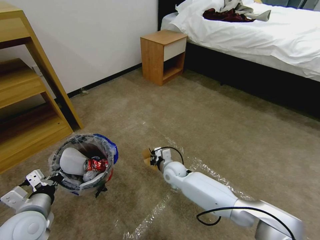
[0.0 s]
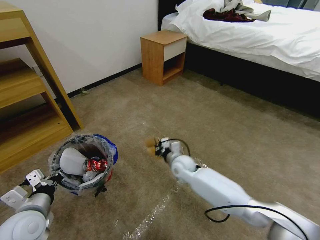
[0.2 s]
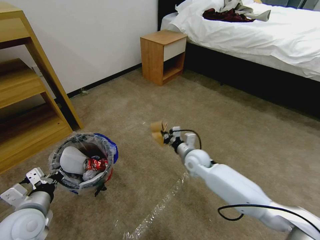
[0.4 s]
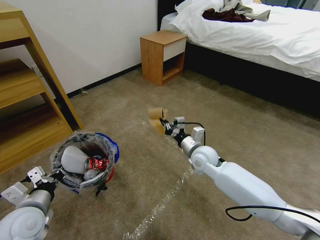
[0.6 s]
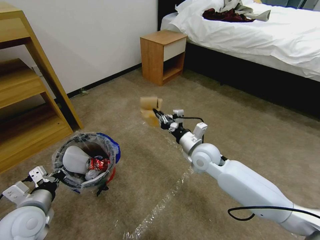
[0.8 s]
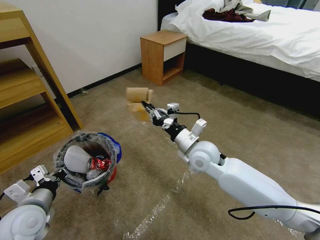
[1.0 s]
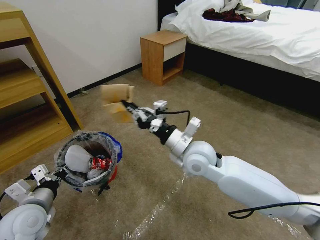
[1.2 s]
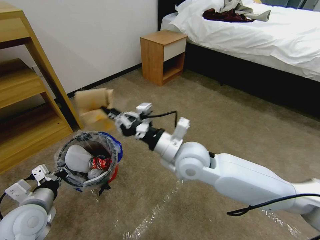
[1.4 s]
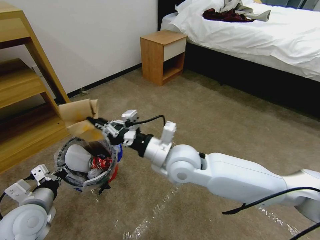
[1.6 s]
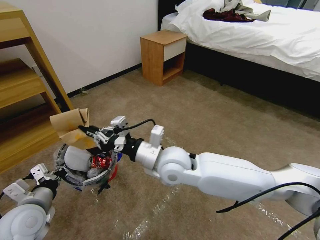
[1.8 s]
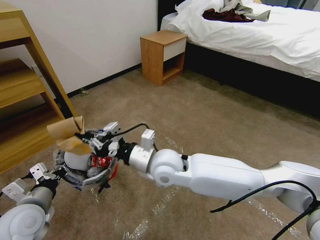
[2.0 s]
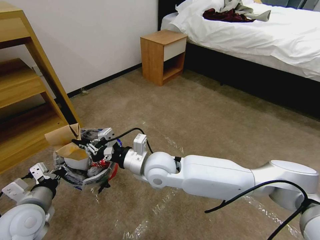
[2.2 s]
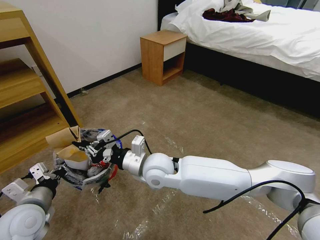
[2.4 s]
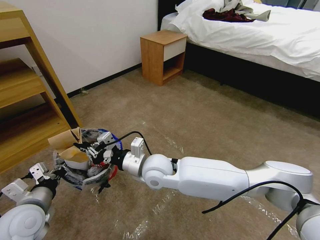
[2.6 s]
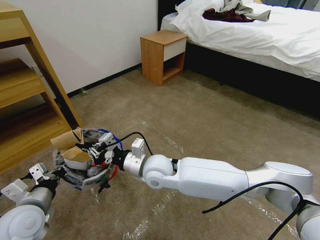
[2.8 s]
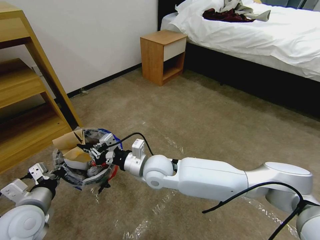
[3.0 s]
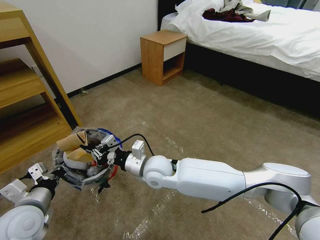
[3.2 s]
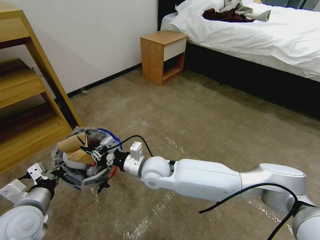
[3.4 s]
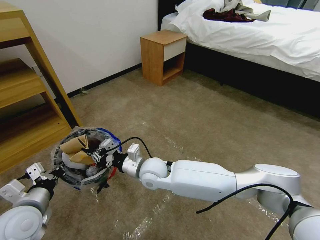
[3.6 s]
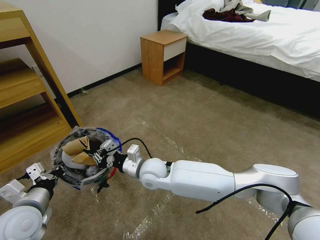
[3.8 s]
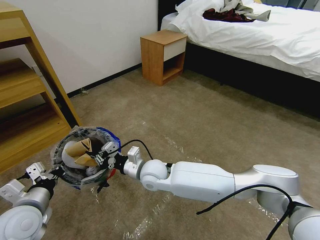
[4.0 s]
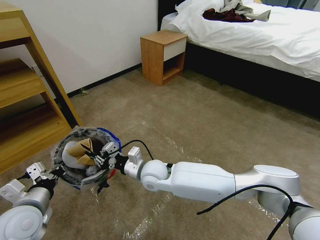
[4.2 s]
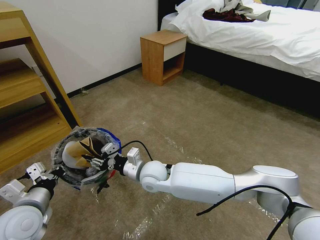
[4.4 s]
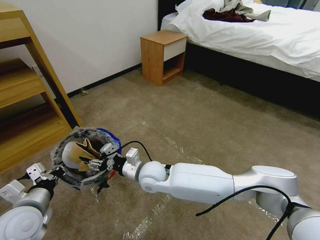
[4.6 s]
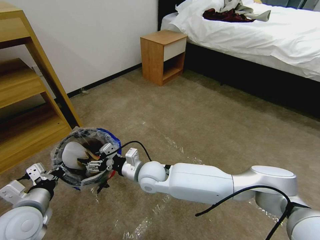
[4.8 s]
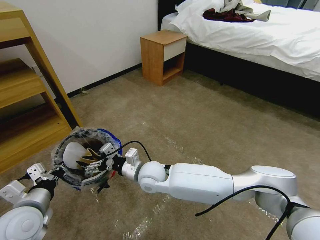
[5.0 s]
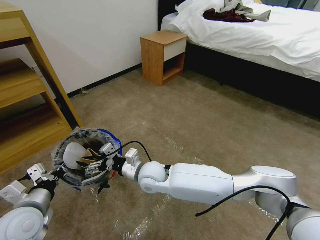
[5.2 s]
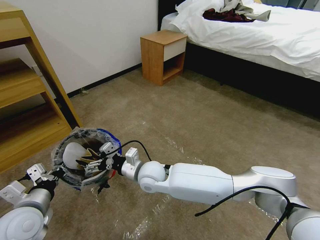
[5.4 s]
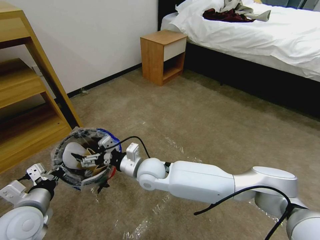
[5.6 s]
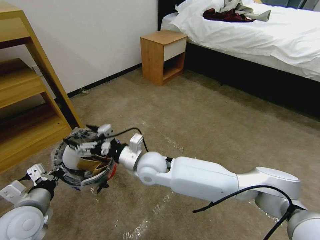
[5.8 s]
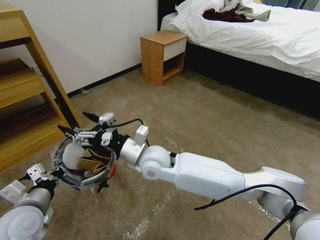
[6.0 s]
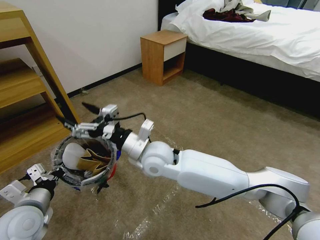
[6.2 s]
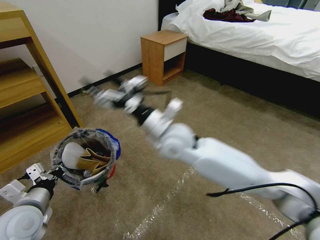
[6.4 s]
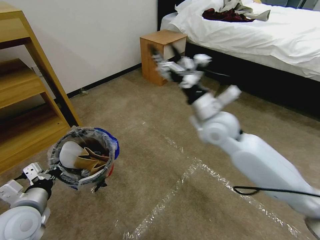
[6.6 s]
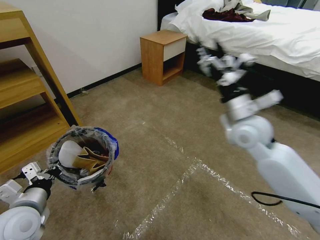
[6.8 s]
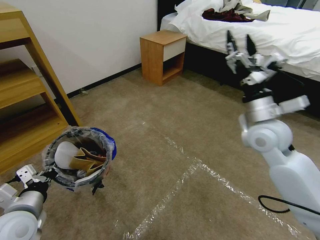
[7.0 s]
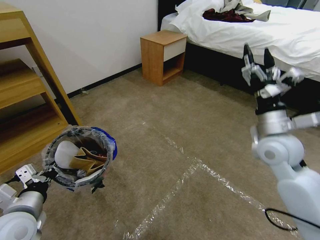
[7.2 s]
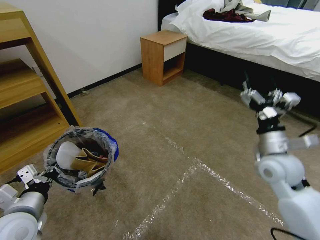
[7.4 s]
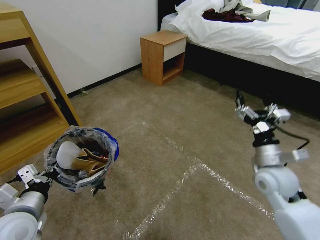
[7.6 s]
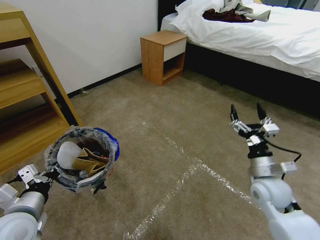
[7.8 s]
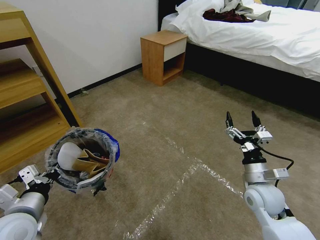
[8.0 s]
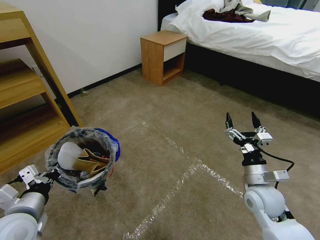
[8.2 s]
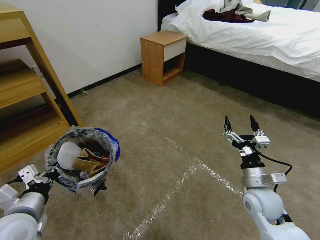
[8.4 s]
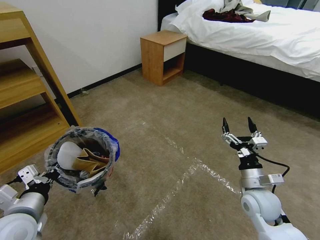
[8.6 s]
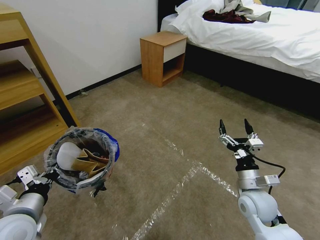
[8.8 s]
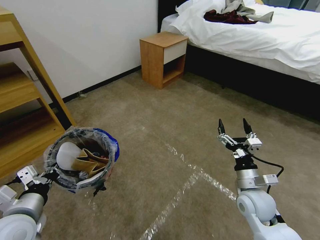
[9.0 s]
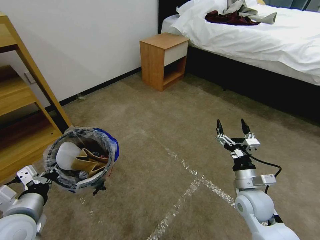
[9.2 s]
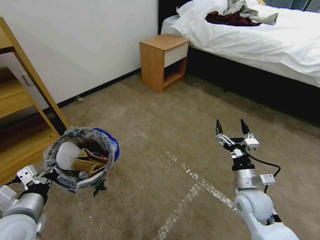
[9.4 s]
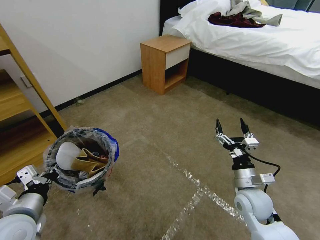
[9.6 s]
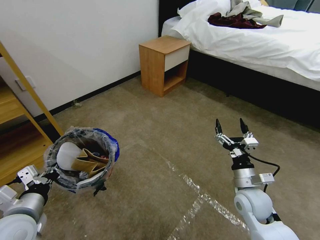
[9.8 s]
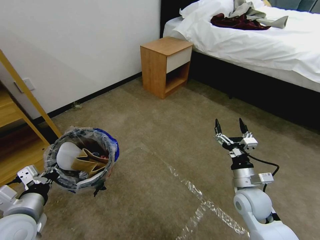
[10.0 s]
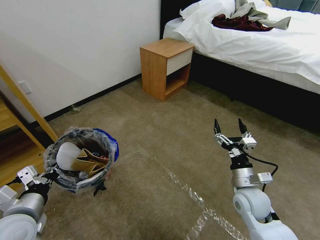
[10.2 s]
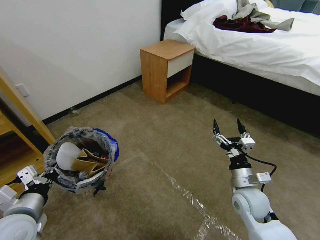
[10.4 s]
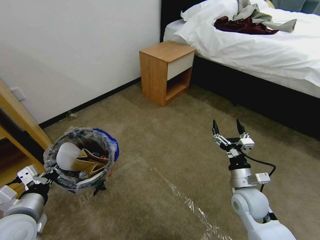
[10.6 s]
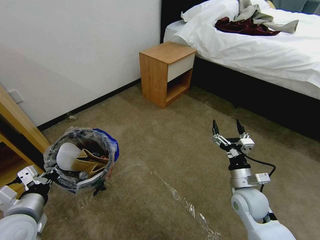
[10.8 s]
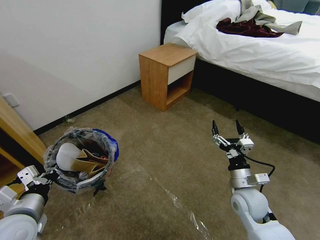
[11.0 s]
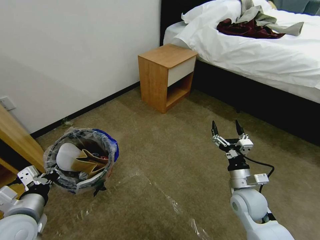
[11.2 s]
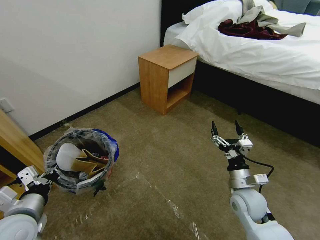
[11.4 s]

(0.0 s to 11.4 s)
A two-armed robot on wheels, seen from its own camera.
Task of the whole recording: Pick up the trash bin and place the garbage on the floor into it.
0.0 s - 1.4 s: The right gripper moves upward, about 25 cm.
1.4 s - 2.8 s: The right gripper goes about 10 cm to the left and downward.
2.8 s - 4.2 s: The right gripper heads downward, covering about 5 cm.
4.2 s - 5.6 s: The right gripper opens its fingers.
5.6 s - 7.2 s: The right gripper heads to the right and upward, covering roughly 35 cm.
7.2 s - 8.6 s: The right gripper moves downward and backward, some 20 cm.

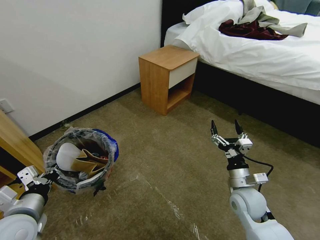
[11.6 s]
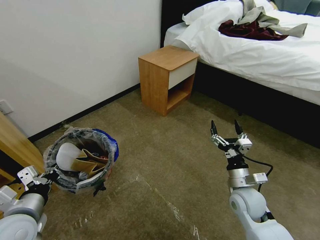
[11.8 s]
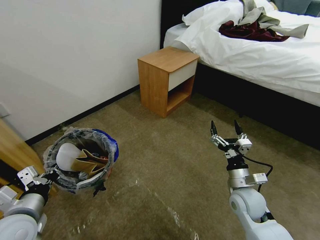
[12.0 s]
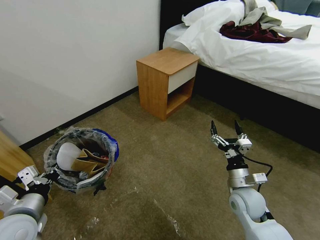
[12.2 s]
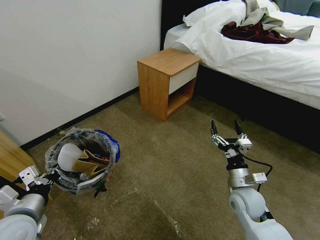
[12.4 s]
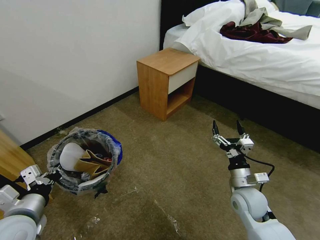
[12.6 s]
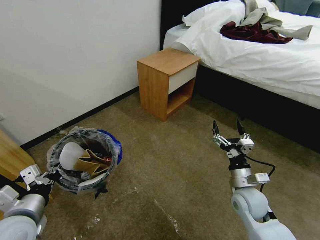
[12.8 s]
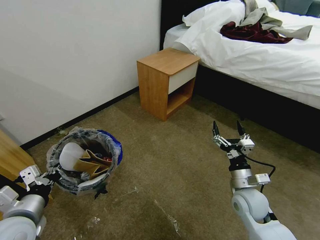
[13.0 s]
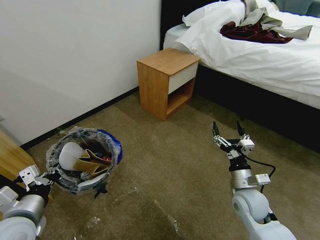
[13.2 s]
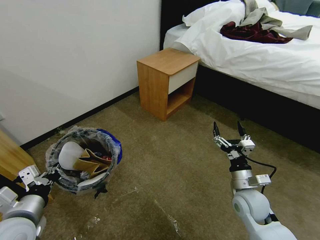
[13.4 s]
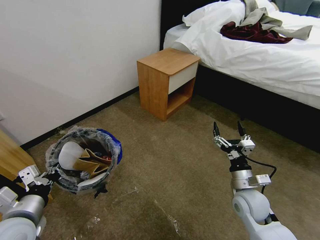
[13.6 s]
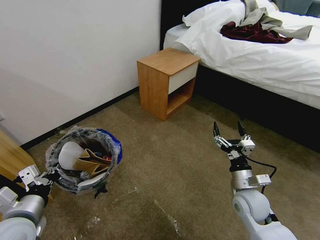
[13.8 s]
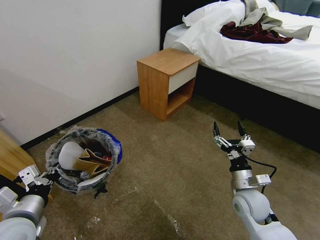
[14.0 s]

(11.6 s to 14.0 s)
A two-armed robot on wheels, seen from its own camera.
Task of the whole recording: Pick up the trash bin and place the garbage on the floor into it.
11.6 s - 14.0 s: The two grippers keep their place.
